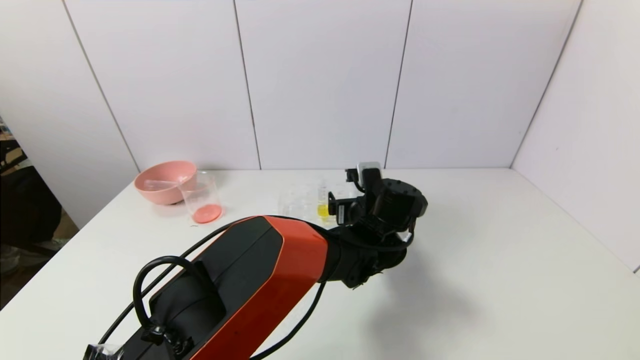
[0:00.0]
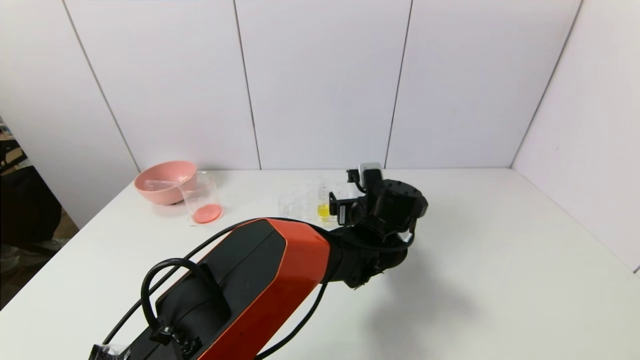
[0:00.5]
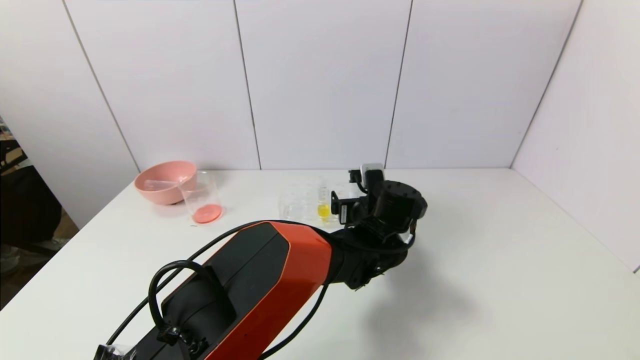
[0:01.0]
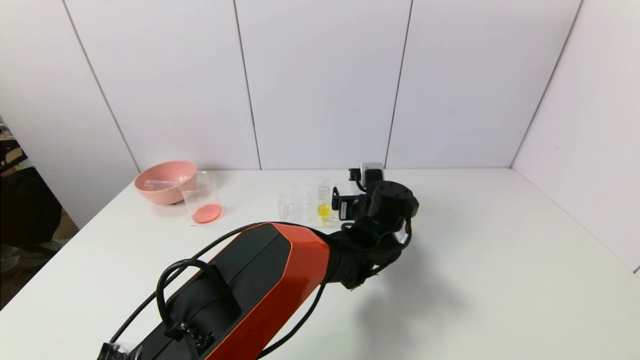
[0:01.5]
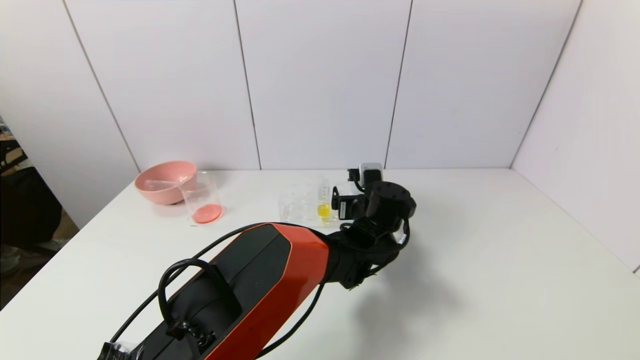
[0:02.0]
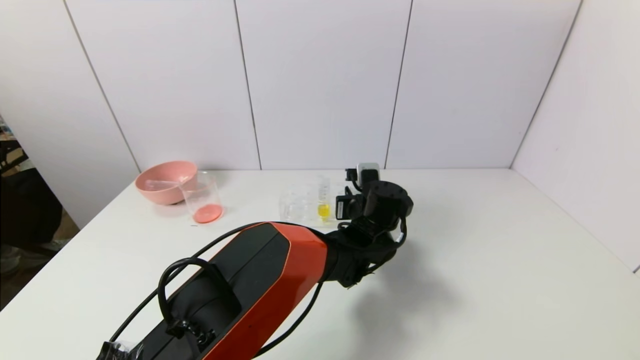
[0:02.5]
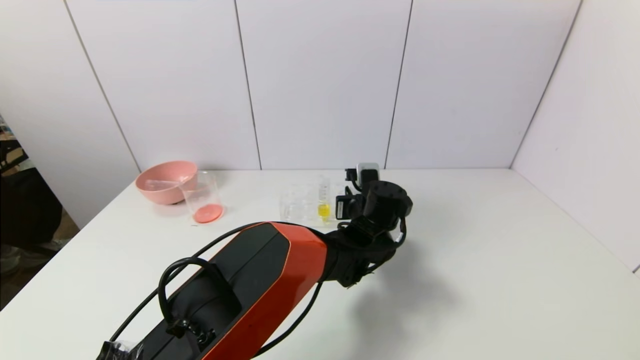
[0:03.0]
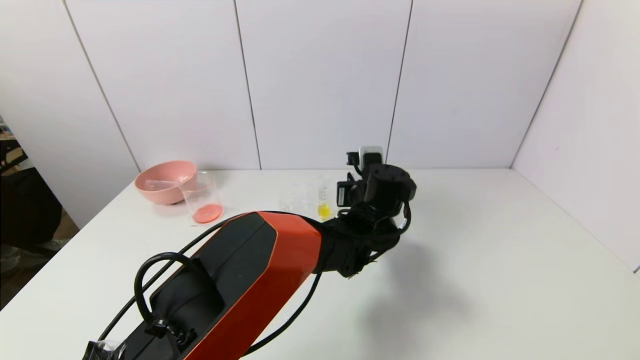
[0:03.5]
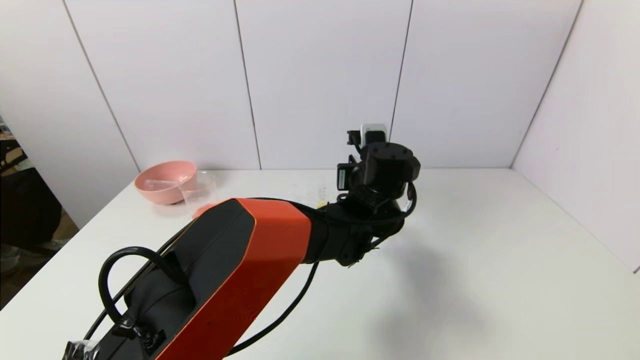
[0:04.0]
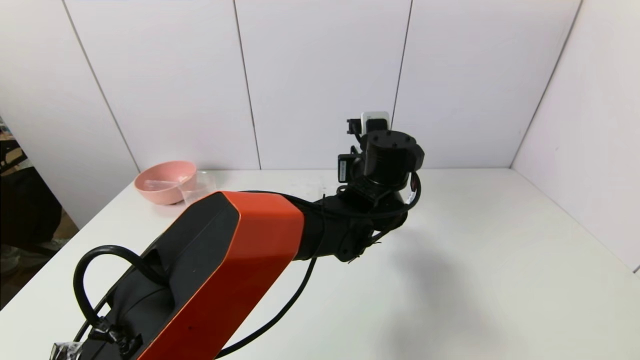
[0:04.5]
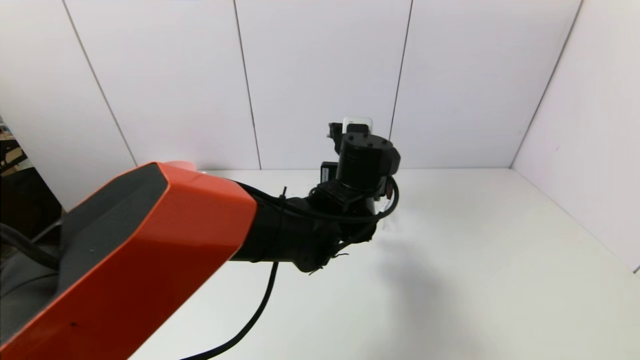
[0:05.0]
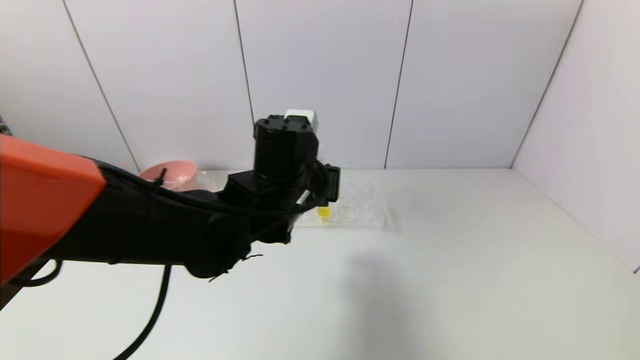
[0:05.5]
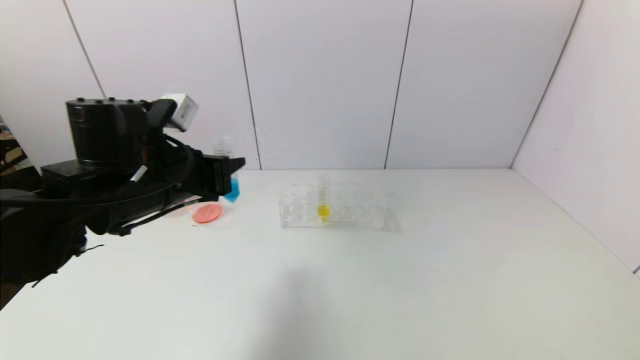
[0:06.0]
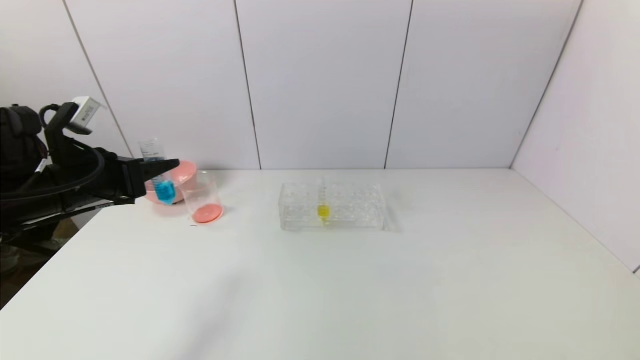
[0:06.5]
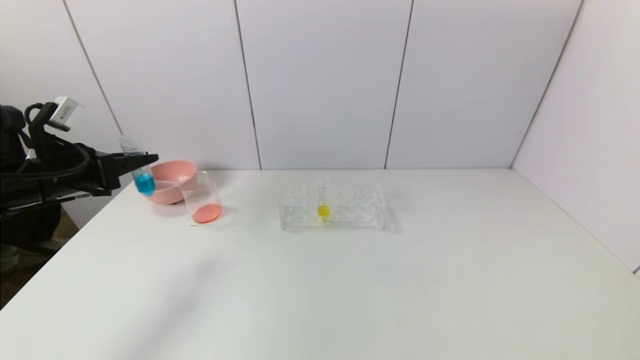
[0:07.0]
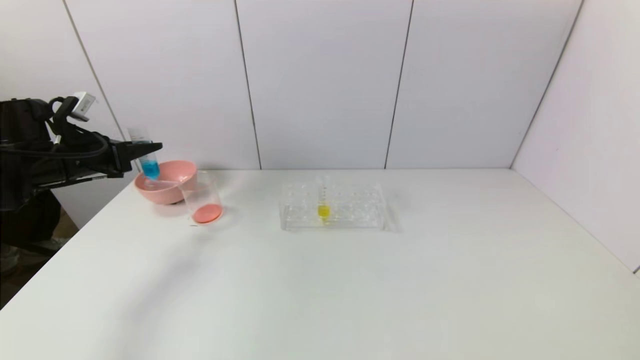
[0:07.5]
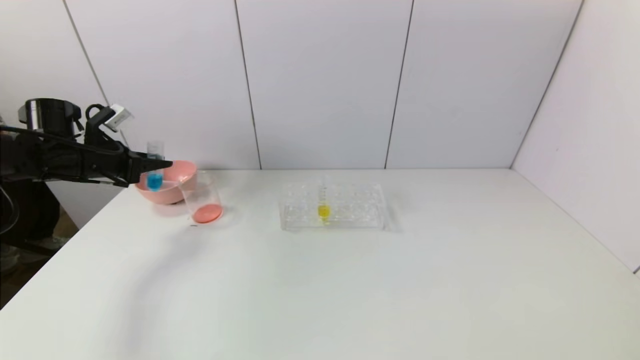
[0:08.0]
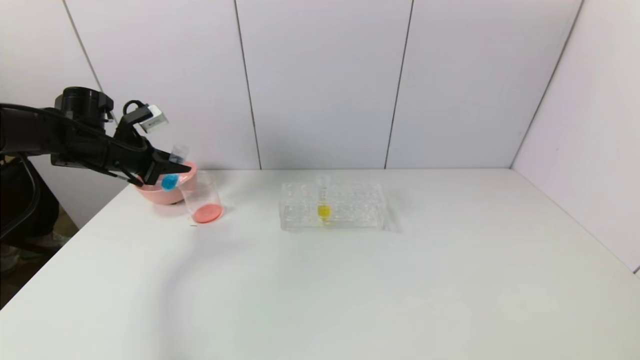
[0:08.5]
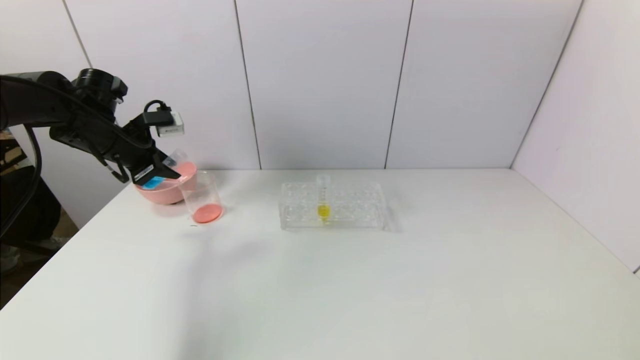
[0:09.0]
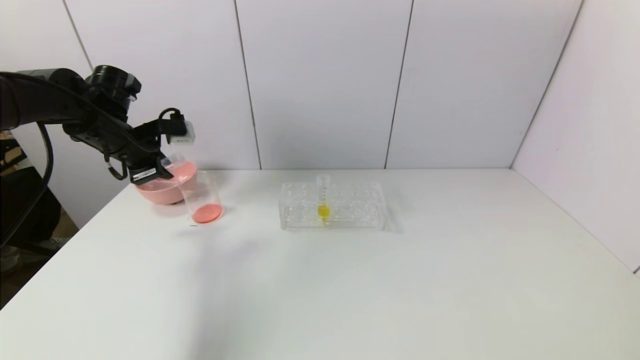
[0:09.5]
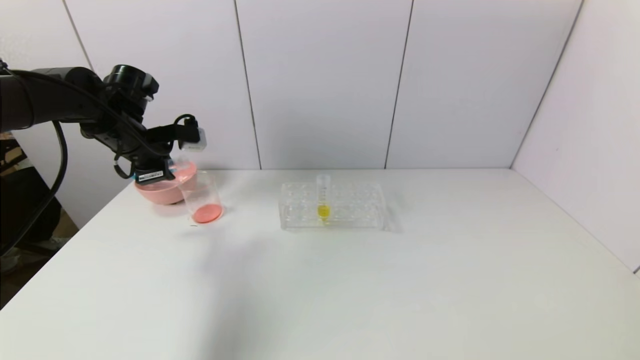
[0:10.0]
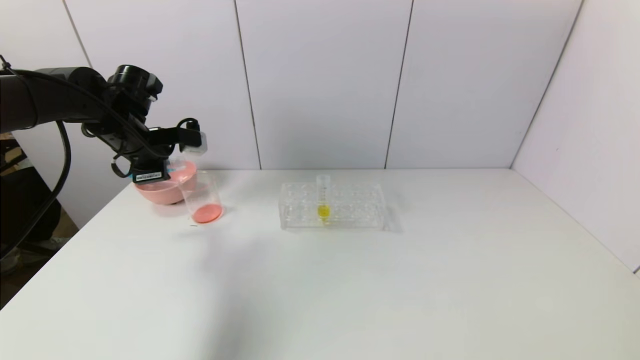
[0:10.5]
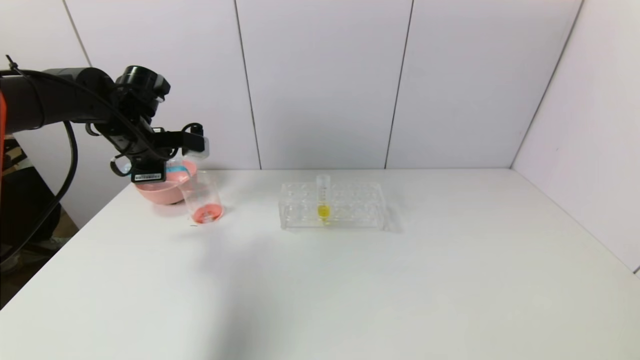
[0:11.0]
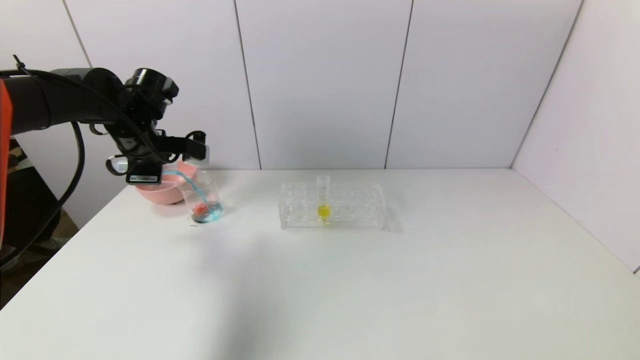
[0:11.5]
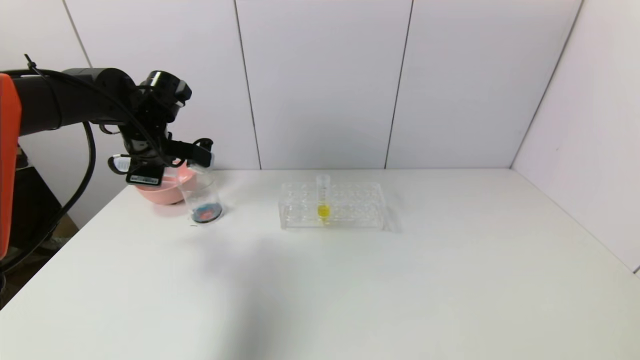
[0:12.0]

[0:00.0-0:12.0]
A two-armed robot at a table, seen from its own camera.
Task of the whole recording: pick up the test tube with red pigment and the test tube with blue pigment by grippers and pour them into the container.
Step, 0:00.0 to 0:02.5: Grasp the blue reagent with the left gripper.
0:00.0 to 0:02.0: The grippers make only small movements.
0:02.0 to 0:04.0: The left gripper shifts about 10 cm upward, and closes up.
0:04.0 to 0:06.0: The left gripper travels to the left by about 30 cm.
0:06.0 to 0:08.0: The left gripper is displaced to the left and forward by some 25 cm.
0:08.0 to 0:10.0: The left gripper heads to the right, covering about 10 cm.

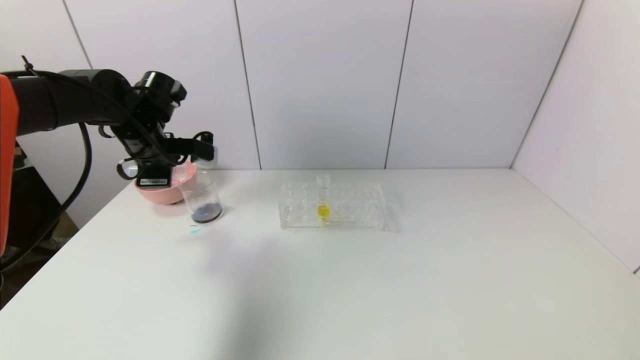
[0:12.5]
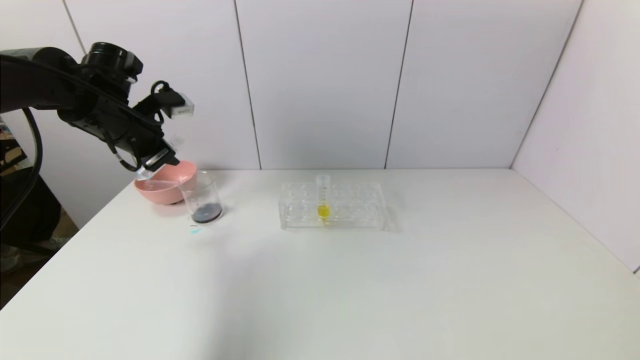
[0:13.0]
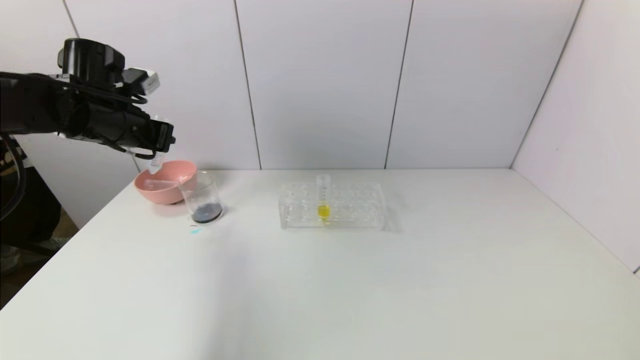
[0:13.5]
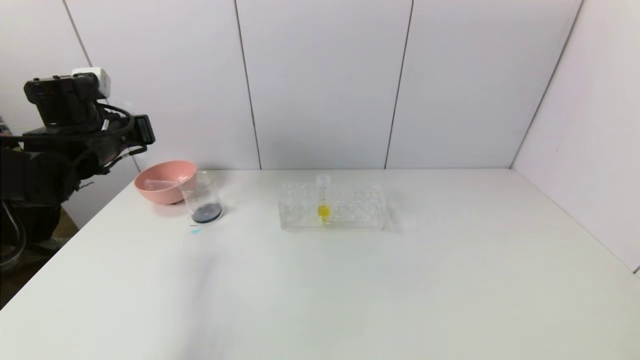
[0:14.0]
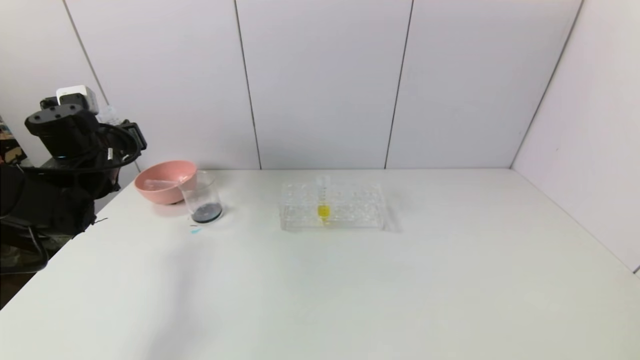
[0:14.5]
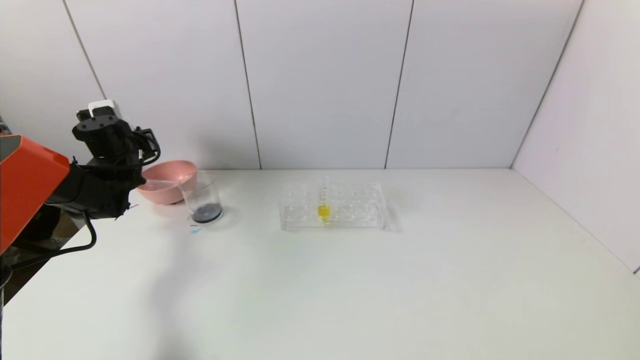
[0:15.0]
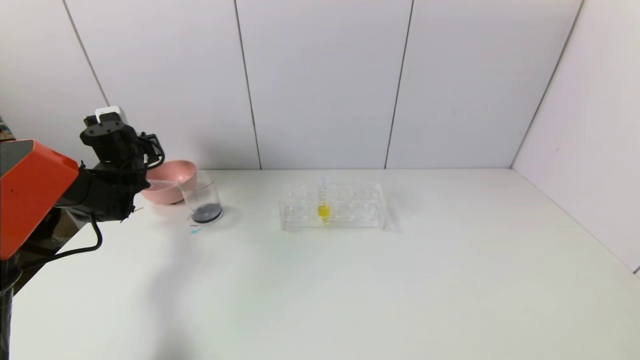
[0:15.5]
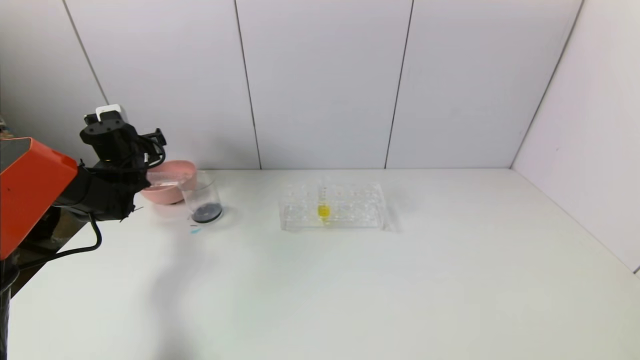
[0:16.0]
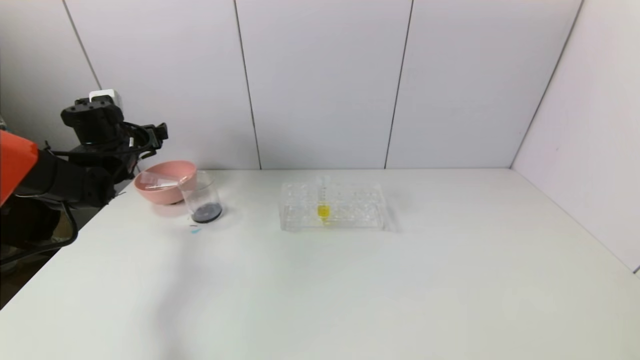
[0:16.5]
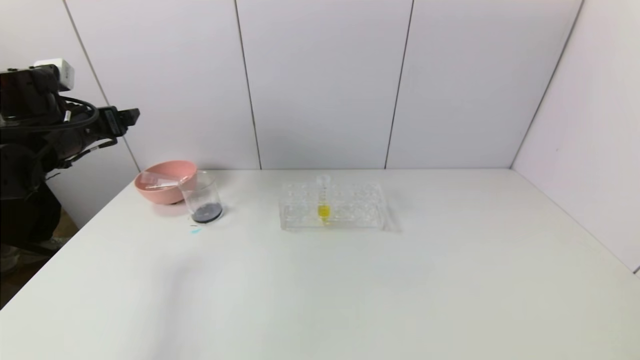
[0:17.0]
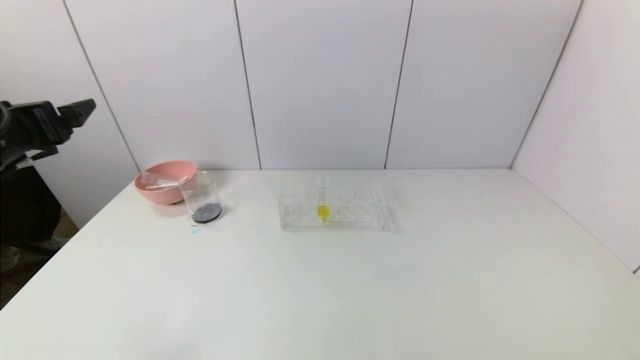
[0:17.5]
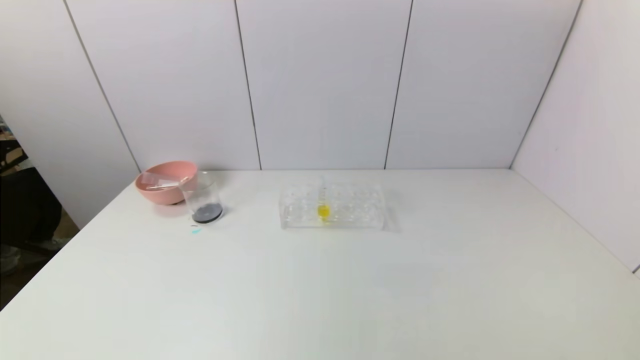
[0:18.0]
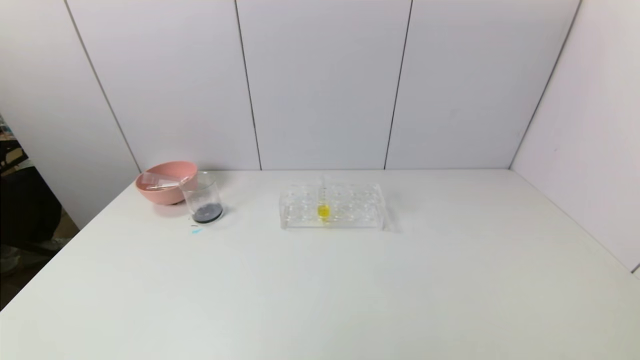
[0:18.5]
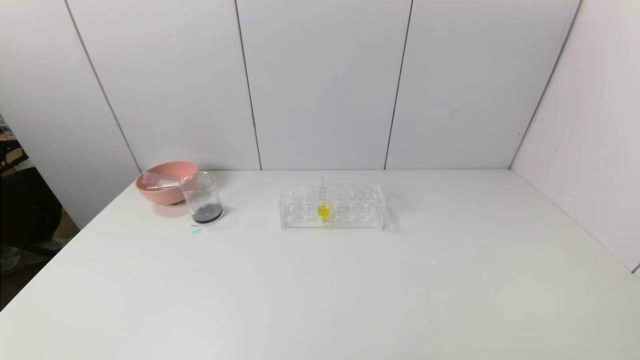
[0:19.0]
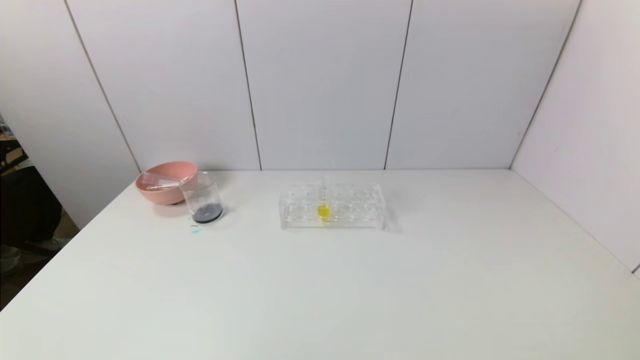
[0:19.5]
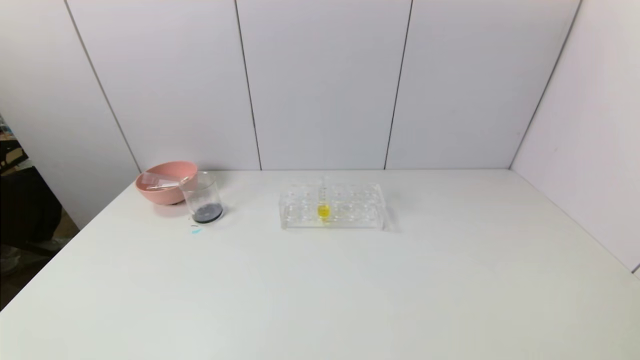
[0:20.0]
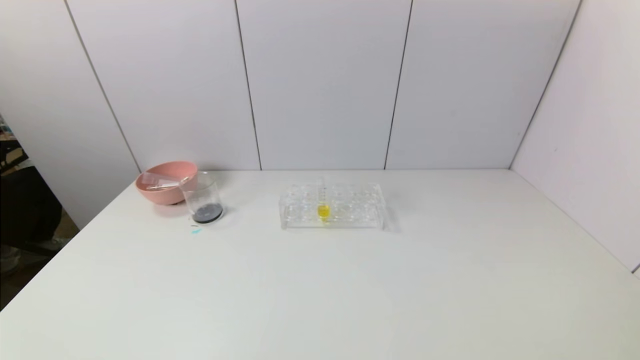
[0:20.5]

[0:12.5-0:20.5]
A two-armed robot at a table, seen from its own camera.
Task of the whole recording: pick up the test tube with red pigment and the test tube with blue pigment by grippers and pour them into the container.
Step, 0:13.0 to 0:15.5: Place the test tube into the bowl with the left gripper.
0:12.5 to 0:14.5: The left gripper is displaced to the left by some 5 cm.
0:14.5 to 0:16.5: The left gripper is displaced forward by about 5 cm, and opens.
0:16.5 to 0:18.5: The left gripper travels backward by some 40 cm.
